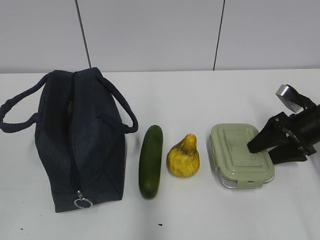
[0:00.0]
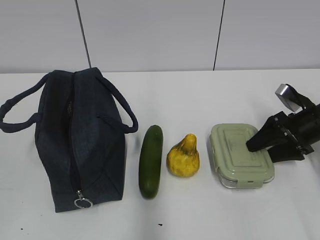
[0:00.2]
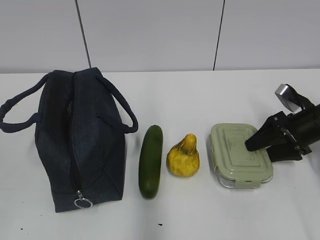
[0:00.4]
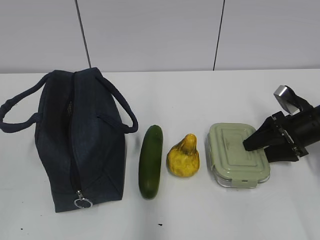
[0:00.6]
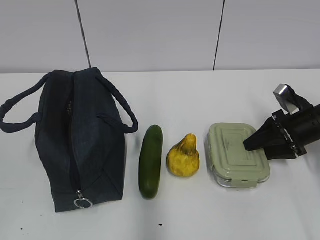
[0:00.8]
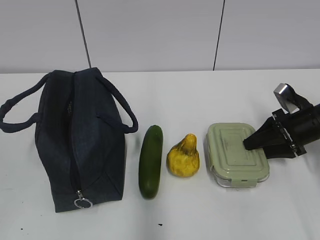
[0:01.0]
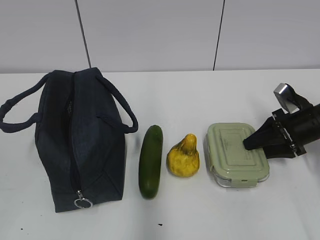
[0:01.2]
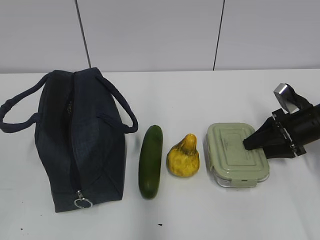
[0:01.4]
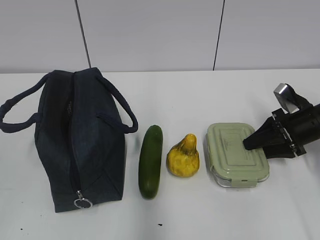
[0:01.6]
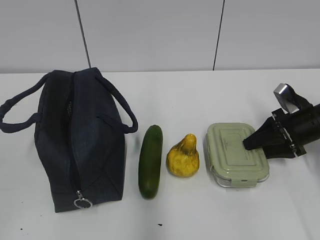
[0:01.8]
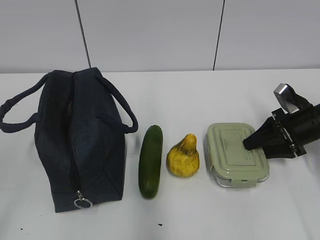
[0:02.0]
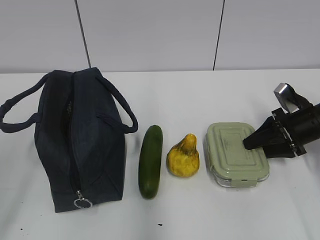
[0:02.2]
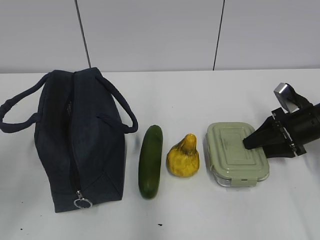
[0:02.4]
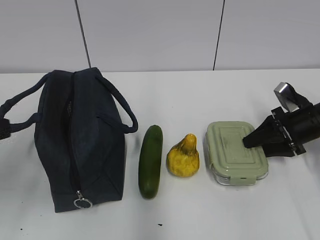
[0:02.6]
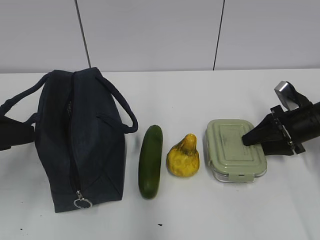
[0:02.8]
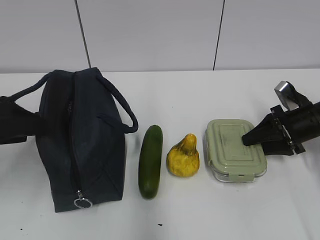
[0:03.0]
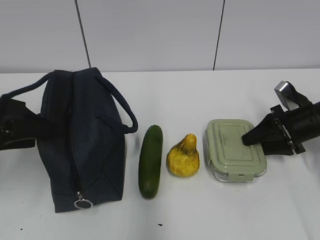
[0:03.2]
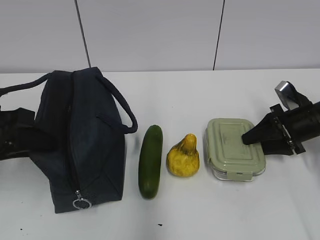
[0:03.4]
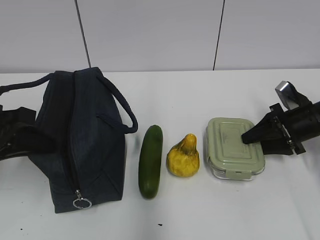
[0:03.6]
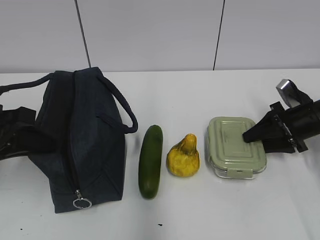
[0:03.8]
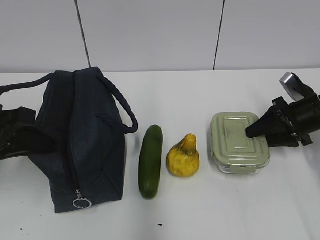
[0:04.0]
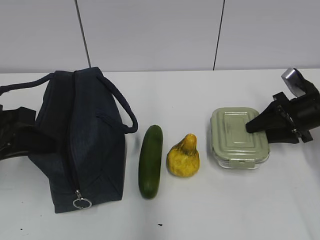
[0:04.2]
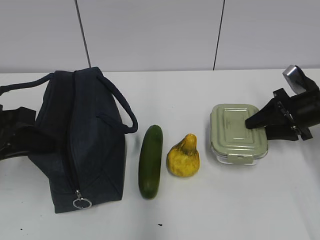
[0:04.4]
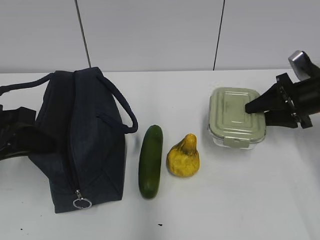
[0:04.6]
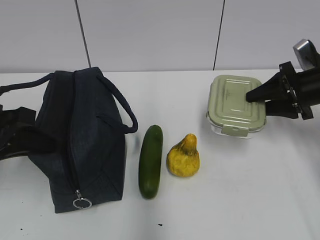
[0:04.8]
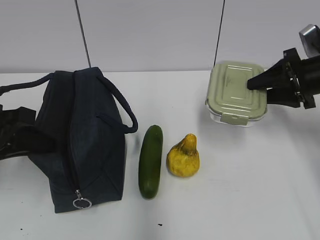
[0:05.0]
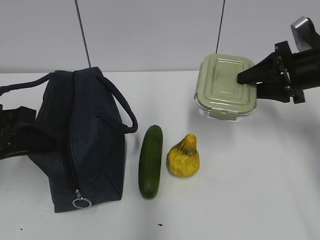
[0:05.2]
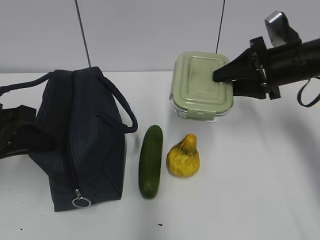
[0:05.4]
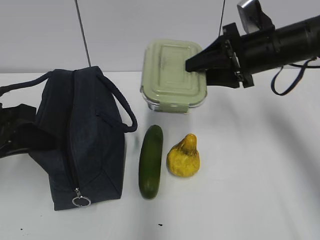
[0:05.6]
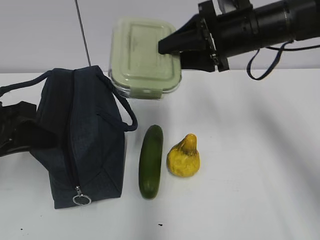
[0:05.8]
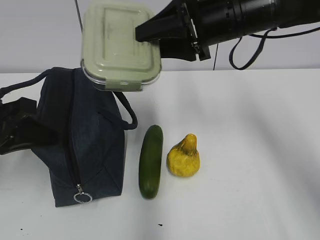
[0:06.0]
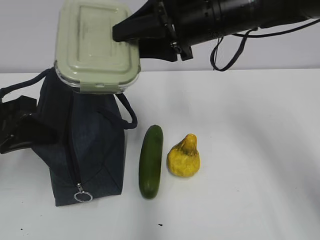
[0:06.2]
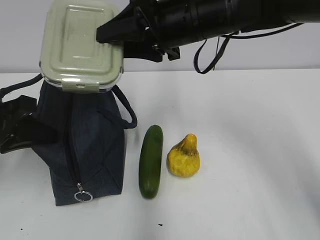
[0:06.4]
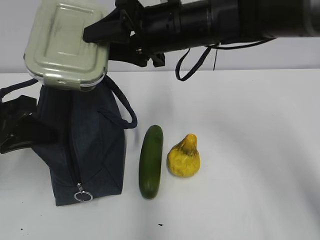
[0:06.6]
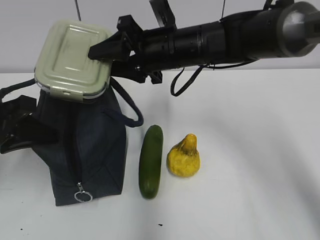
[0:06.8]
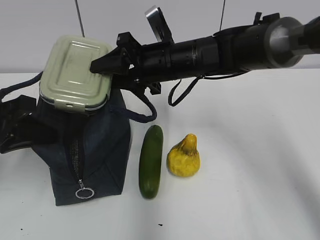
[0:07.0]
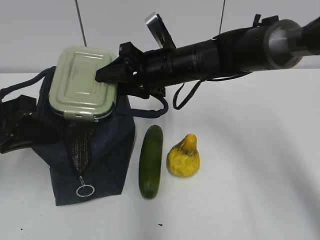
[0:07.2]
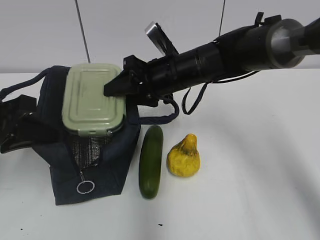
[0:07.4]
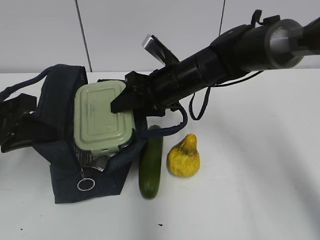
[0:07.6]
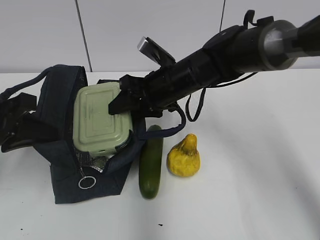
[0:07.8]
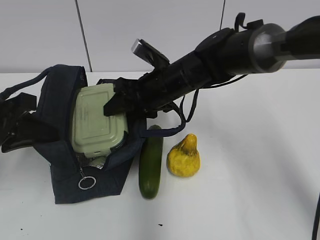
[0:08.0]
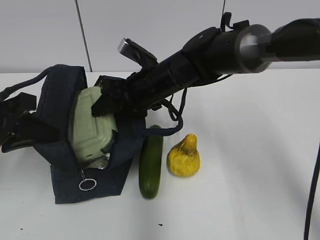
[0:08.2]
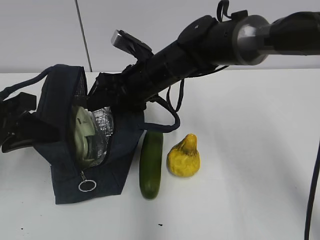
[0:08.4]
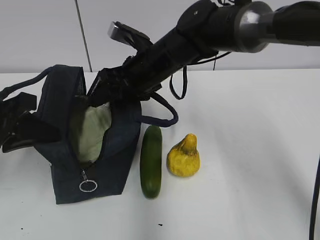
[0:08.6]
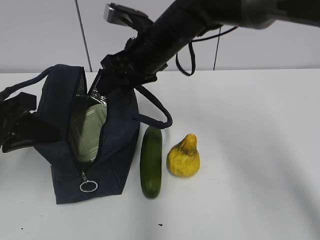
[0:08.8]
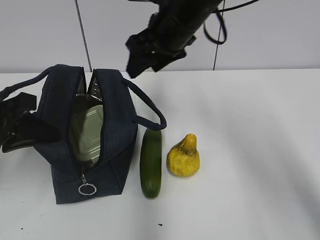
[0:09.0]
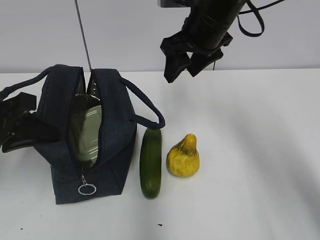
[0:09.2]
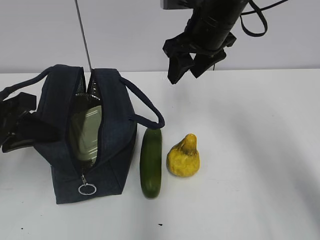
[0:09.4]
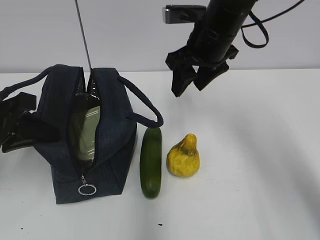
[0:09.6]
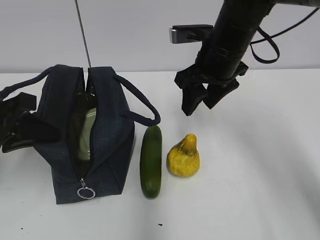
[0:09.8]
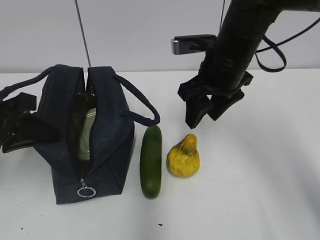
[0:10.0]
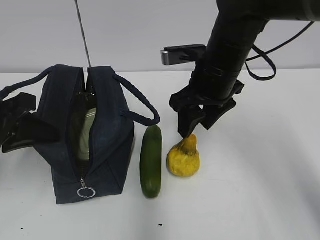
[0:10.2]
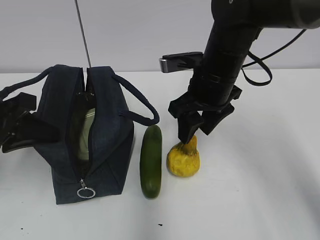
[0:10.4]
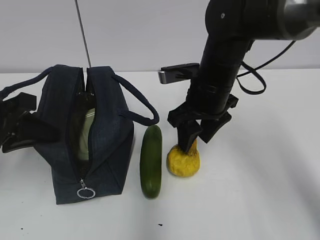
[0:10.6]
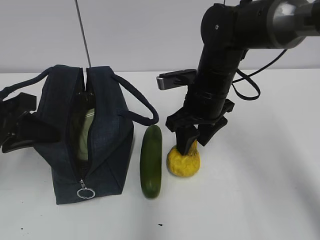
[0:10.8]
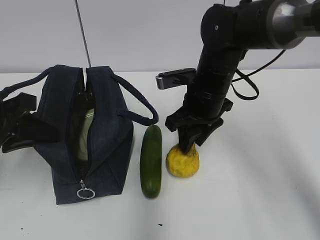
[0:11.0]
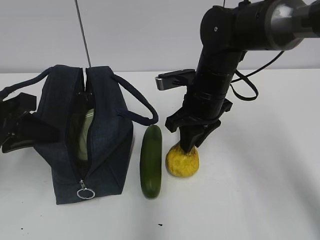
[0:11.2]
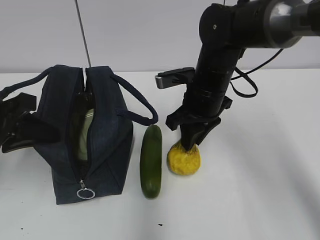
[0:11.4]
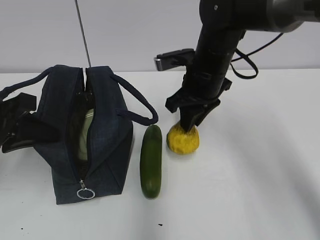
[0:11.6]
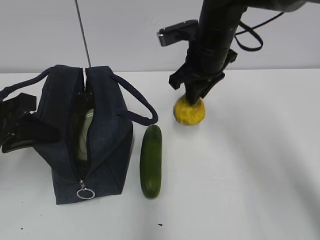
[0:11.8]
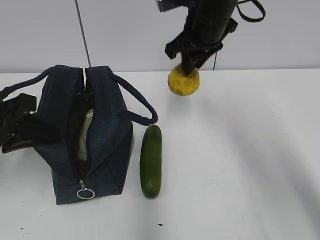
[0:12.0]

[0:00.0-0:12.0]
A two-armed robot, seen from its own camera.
0:00.0 to 0:01.6: The grippers make only small movements.
0:01.6 to 0:03.0: The left gripper is displaced forward by some 20 cm.
0:03.0 to 0:04.4: The left gripper closes up.
0:04.4 to 0:06.0: The right gripper heads to the left and upward, covering about 25 cm.
0:06.0 to 0:07.6: The right gripper goes approximately 15 cm downward and to the left.
0:07.6 to 0:09.0: The right gripper goes roughly 10 cm upward.
0:09.0 to 0:10.4: The right gripper travels downward by about 5 cm.
0:10.4 to 0:12.0: The right gripper heads upward and forward, covering approximately 10 cm, and closes.

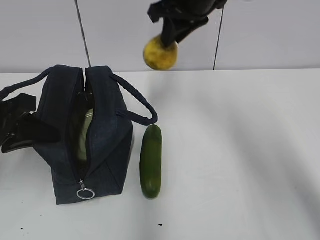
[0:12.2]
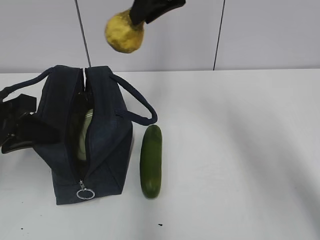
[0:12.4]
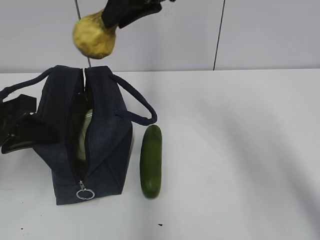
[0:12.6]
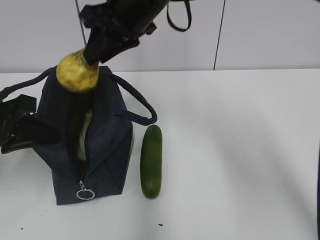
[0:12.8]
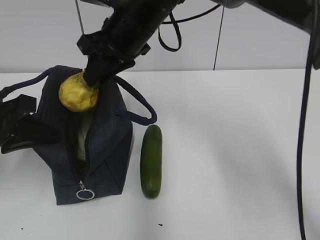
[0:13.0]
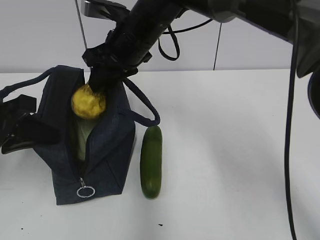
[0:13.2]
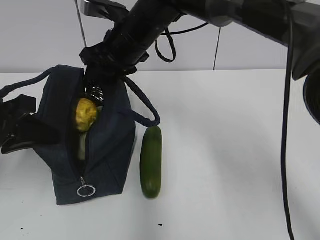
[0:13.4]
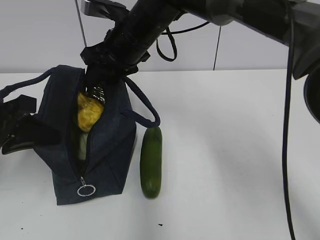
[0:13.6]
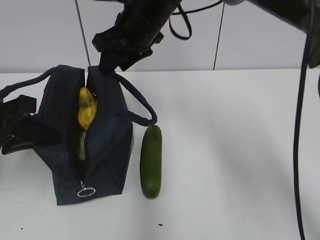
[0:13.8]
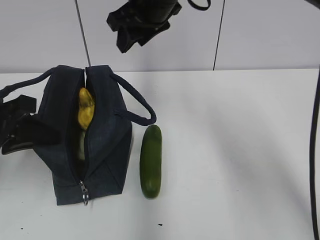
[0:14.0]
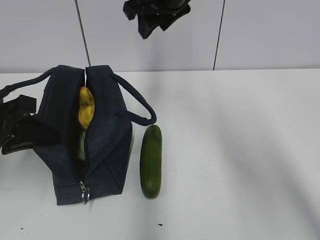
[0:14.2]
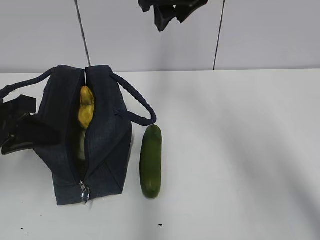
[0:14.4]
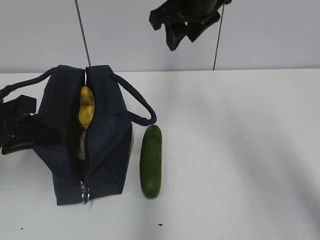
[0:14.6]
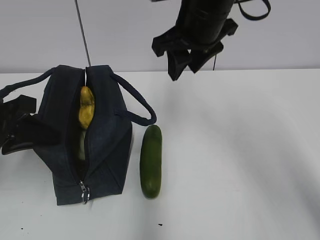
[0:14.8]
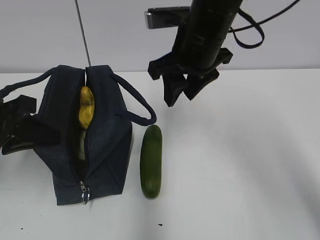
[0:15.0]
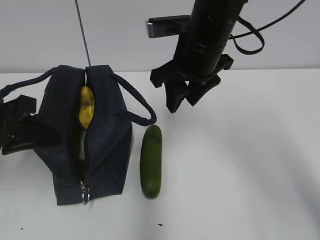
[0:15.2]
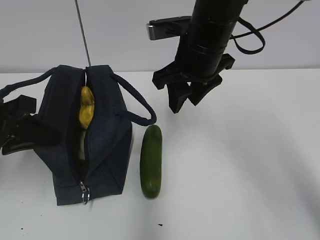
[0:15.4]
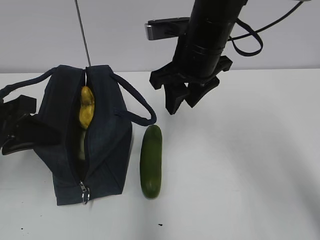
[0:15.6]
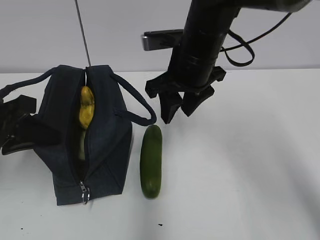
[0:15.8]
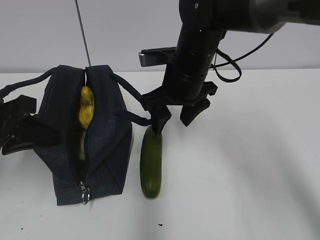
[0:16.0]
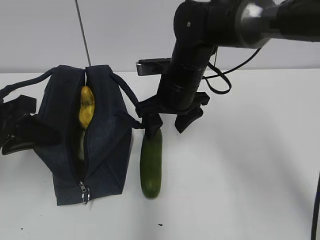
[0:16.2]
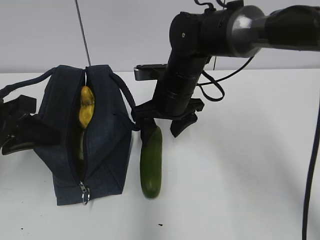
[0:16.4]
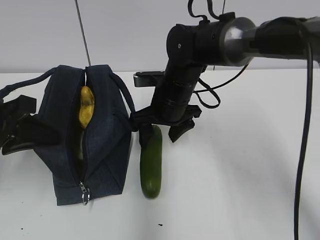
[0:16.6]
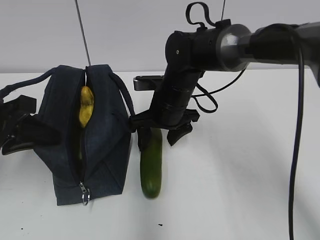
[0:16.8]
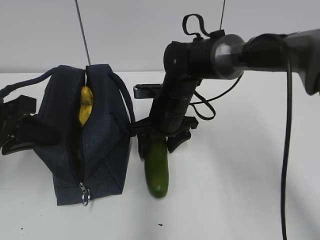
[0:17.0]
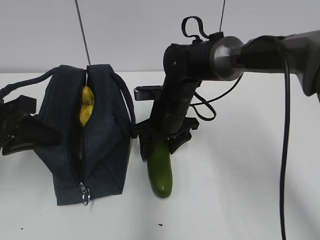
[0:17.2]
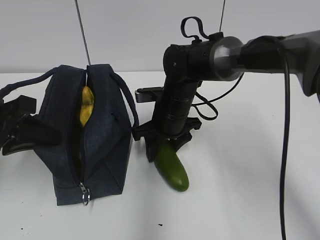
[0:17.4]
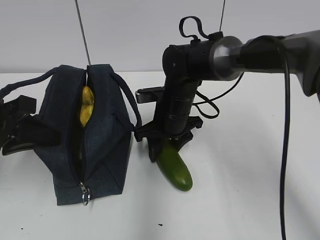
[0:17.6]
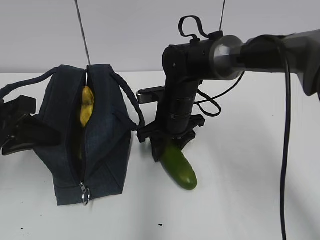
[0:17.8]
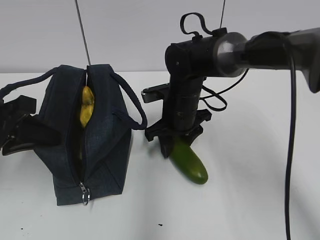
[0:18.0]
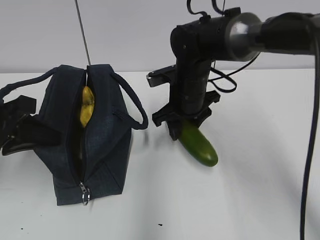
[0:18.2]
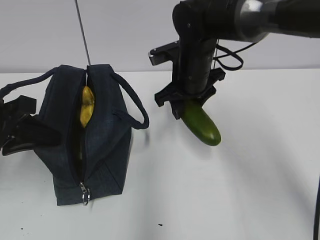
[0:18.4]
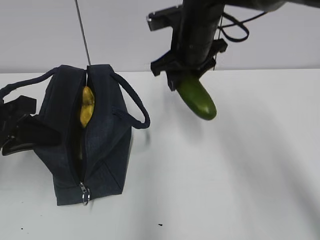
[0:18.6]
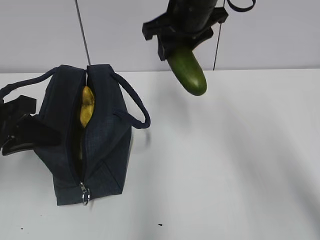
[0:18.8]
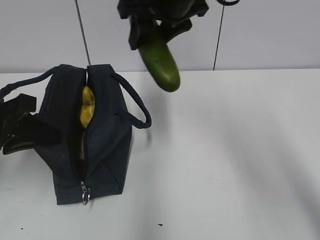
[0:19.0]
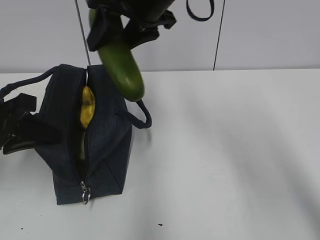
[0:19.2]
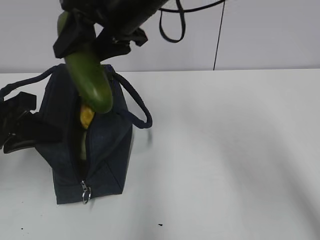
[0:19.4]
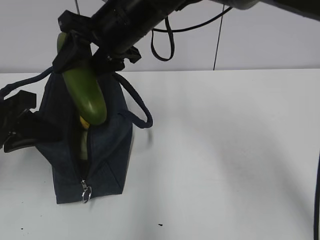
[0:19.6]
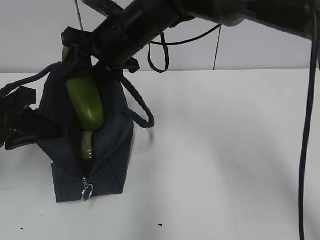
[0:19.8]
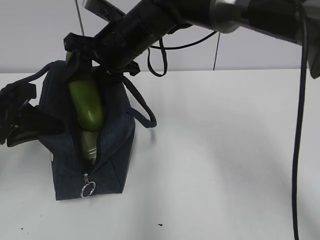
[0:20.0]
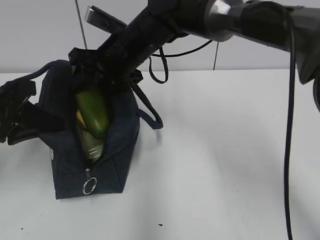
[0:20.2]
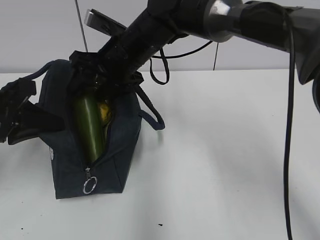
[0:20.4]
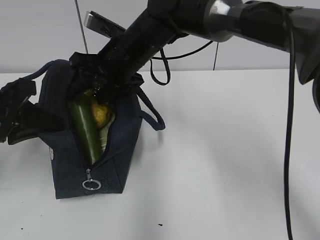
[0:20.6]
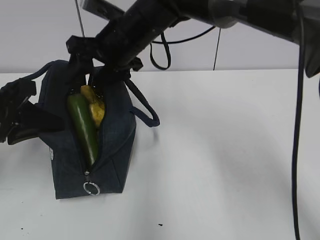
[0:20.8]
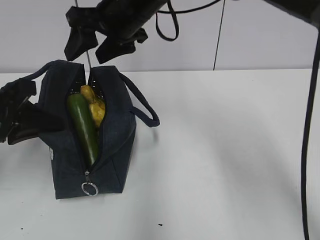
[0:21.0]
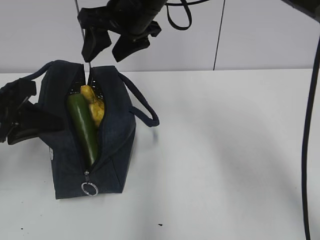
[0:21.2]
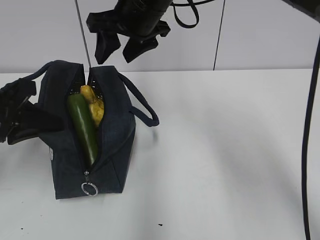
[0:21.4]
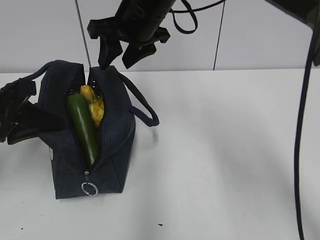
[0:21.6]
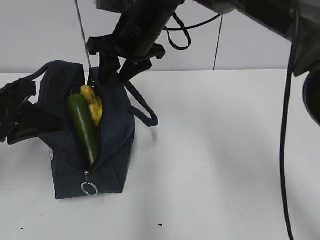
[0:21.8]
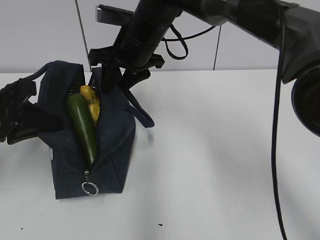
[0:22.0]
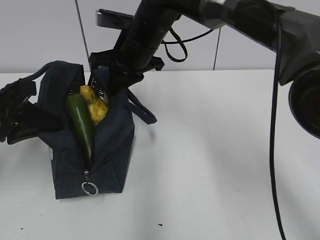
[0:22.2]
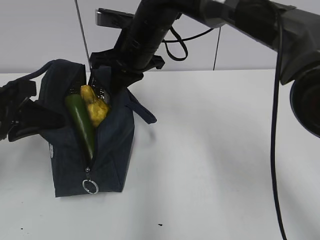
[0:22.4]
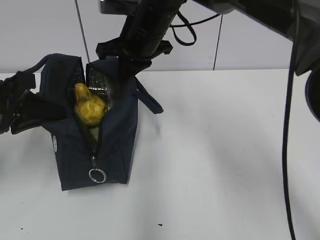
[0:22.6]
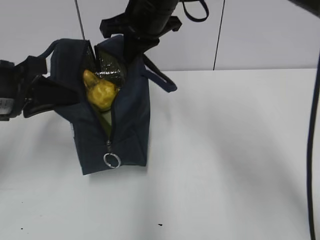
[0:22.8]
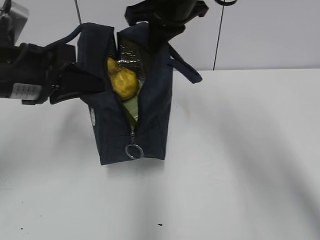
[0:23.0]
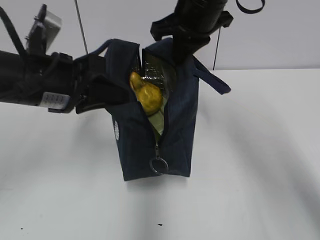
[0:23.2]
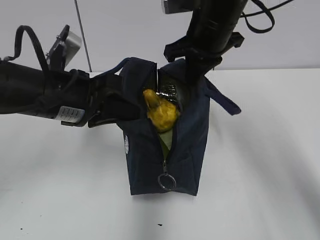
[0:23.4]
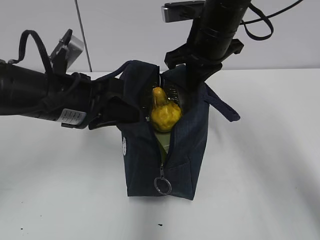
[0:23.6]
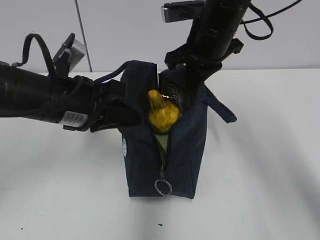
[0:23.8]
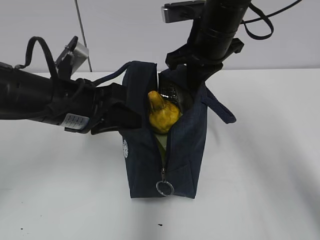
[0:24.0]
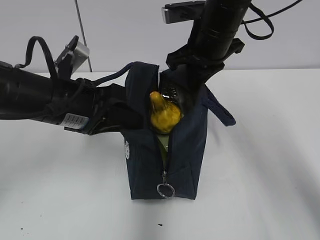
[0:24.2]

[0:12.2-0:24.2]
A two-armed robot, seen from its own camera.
0:12.2 to 0:13.8: The right gripper shifts roughly 10 cm to the left and downward.
0:13.8 to 0:15.2: The right gripper goes about 10 cm to the right and backward, and reaches about 5 cm upward, then returns.
0:15.2 to 0:16.6: The right gripper is displaced downward by some 10 cm, and opens its fingers.
0:16.6 to 0:18.2: The grippers move only a little.
0:18.2 to 0:19.8: The right gripper travels upward and to the left by some 15 cm.
0:19.8 to 0:21.2: The right gripper moves some 5 cm.
0:21.2 to 0:22.6: The right gripper closes.
0:22.6 to 0:24.2: The two grippers go about 10 cm to the right.
